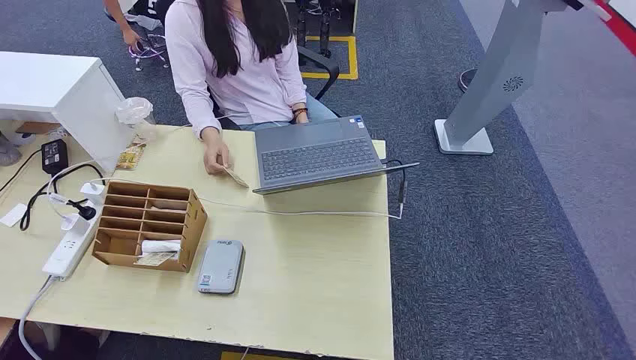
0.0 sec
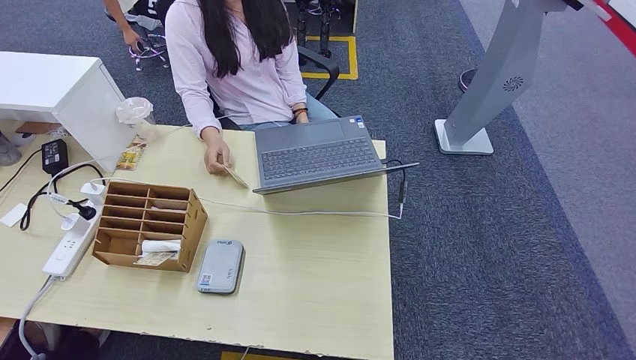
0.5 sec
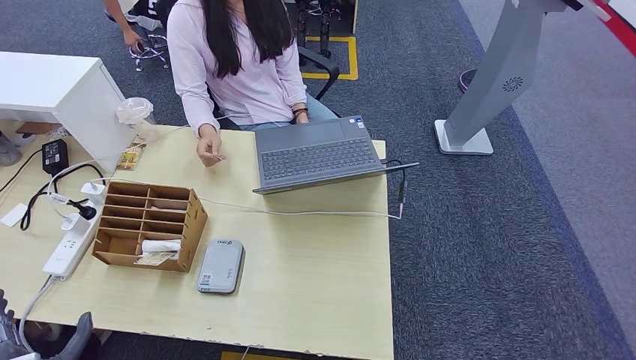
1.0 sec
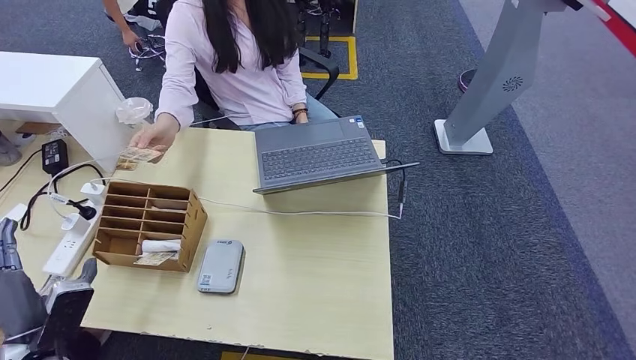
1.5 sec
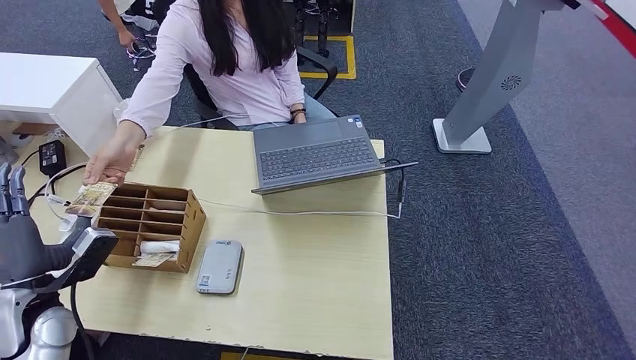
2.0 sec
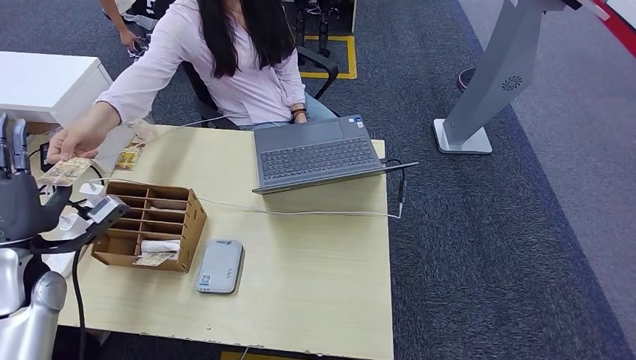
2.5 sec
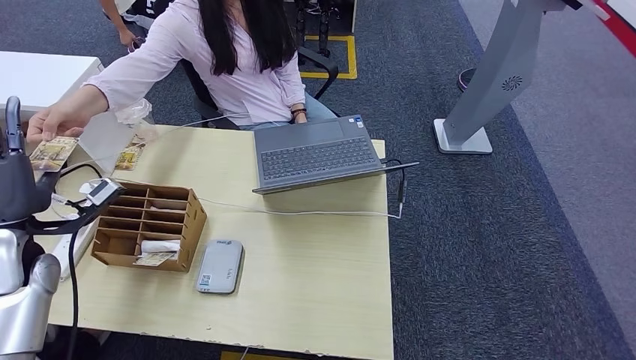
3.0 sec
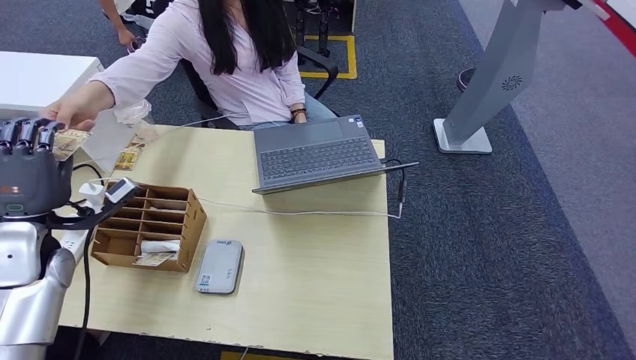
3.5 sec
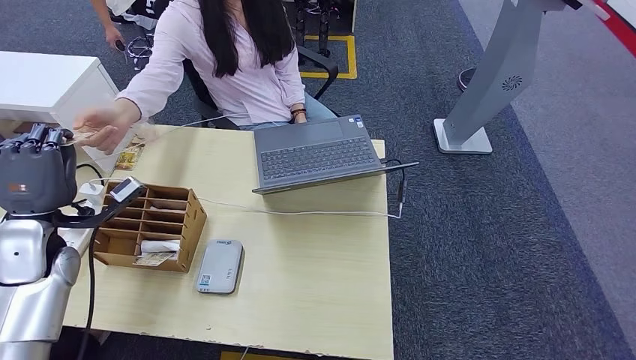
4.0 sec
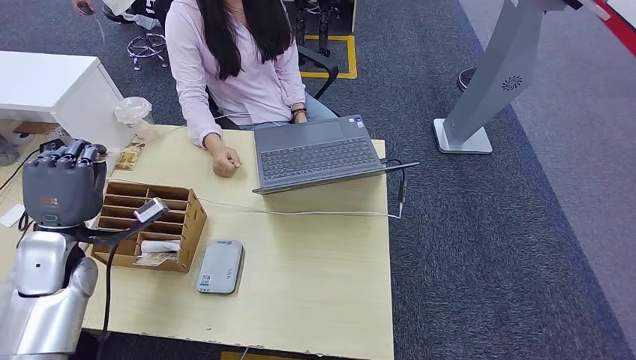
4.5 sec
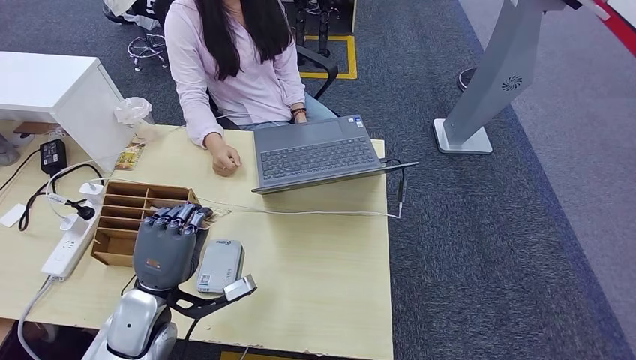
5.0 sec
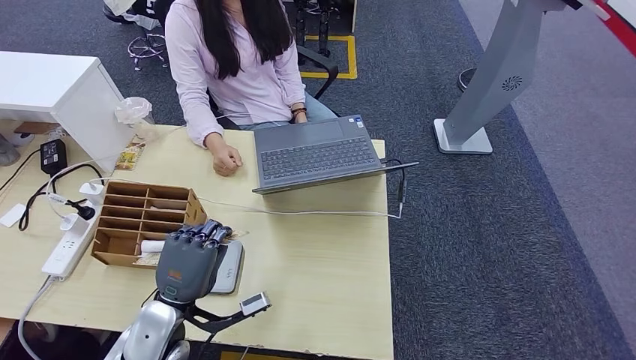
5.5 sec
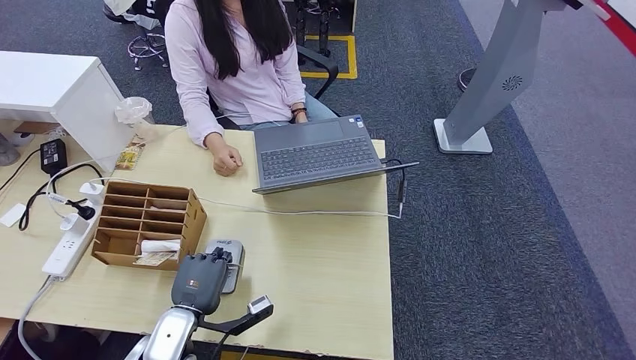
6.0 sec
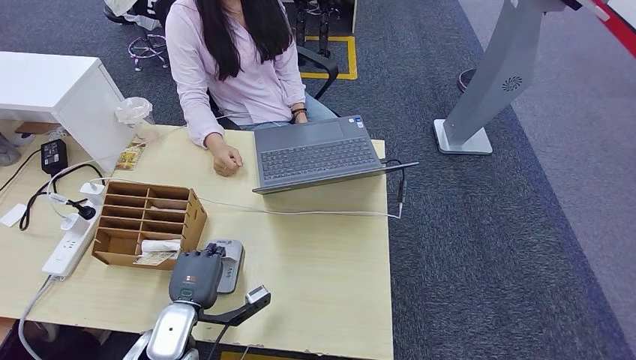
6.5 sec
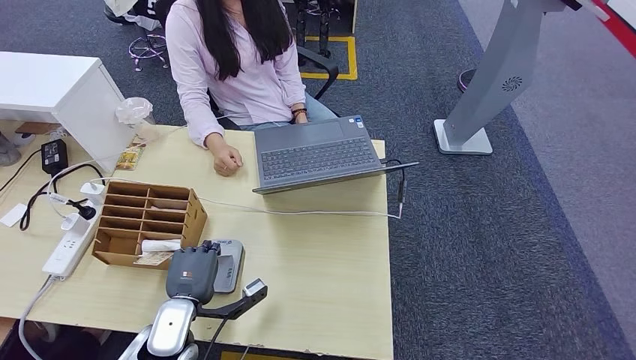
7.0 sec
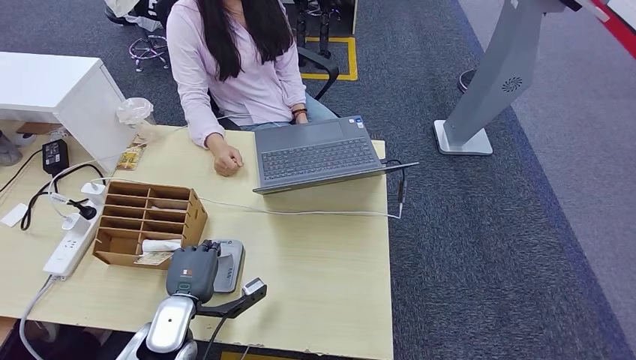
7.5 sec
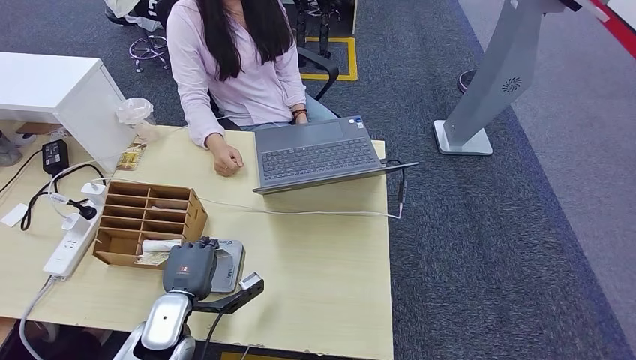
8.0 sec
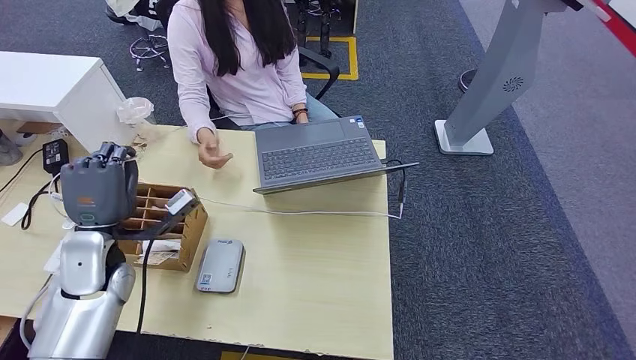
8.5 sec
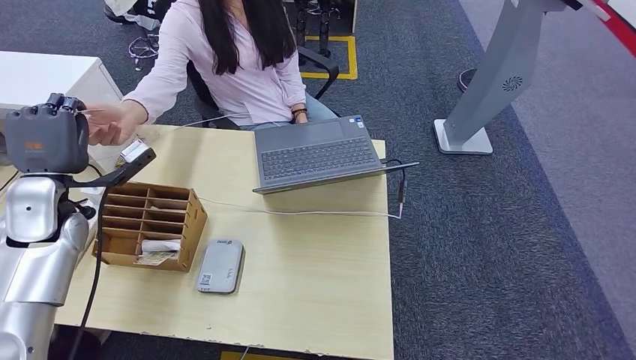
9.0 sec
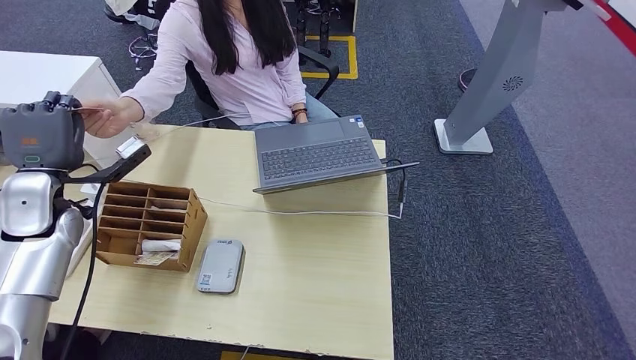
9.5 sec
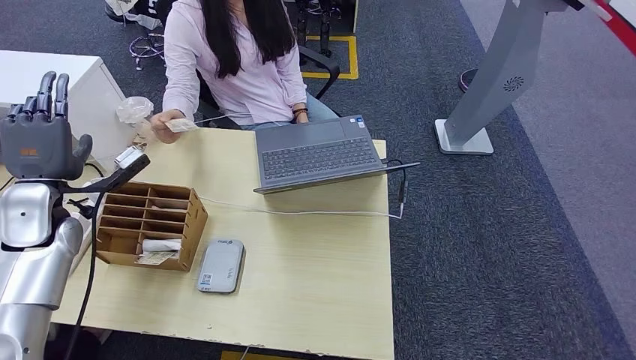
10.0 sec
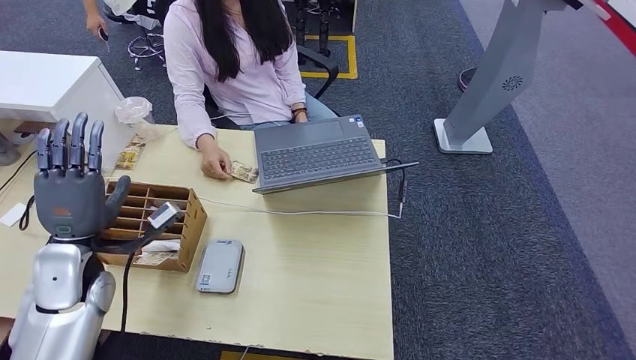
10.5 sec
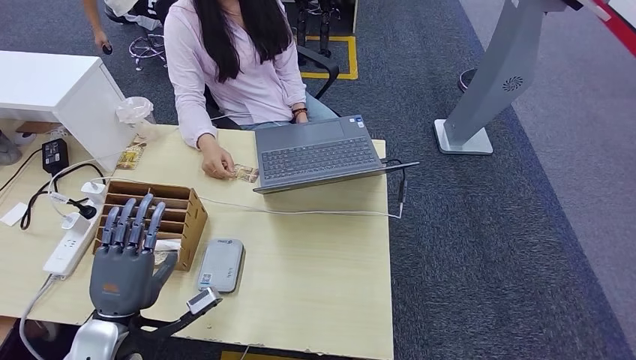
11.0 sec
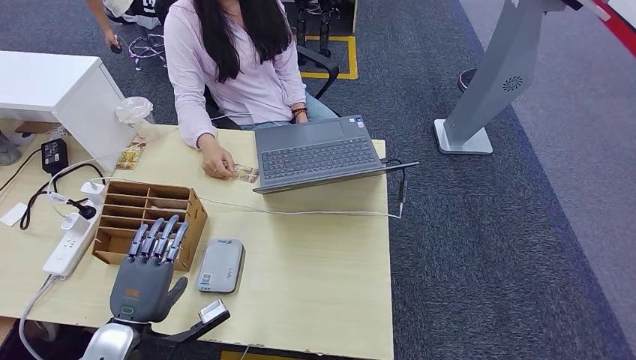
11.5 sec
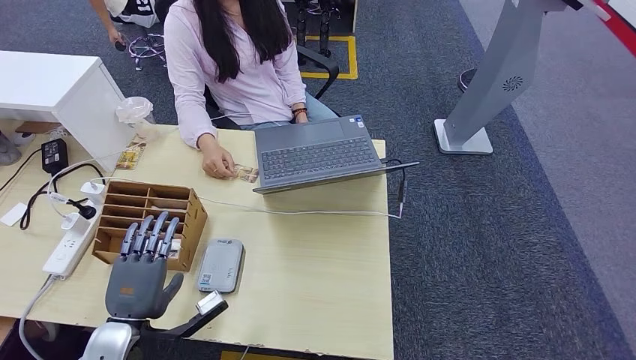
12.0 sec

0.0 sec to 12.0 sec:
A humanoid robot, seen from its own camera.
Step, 0.0 sec to 4.0 sec: Take the ID card from the person's hand.
Step, 4.5 sec to 8.0 sec: Place the ID card on the card reader.
Step, 8.5 sec to 9.5 sec: Hand the ID card to the person.
2.0 sec to 4.0 sec: The left hand moves forward and upward, some 10 cm.
4.0 sec to 6.0 sec: The left hand heads to the right, downward and backward, covering some 25 cm.
6.0 sec to 8.0 sec: The hands make only small movements.
8.0 sec to 10.0 sec: The left hand travels upward, to the left and forward by some 30 cm.
10.0 sec to 12.0 sec: The left hand heads backward, downward and to the right, covering approximately 25 cm.

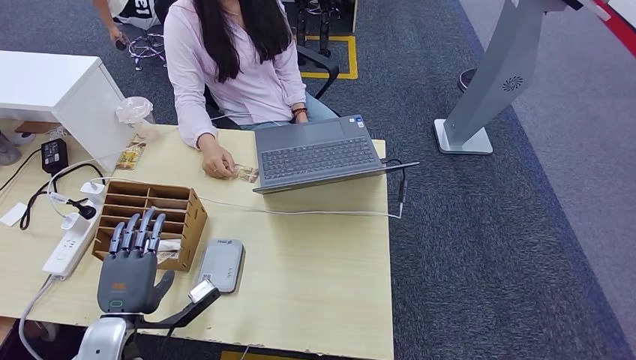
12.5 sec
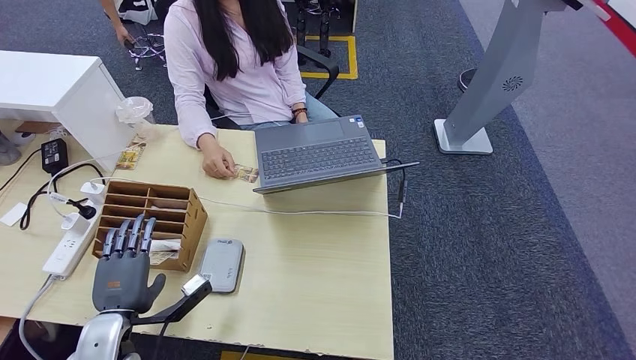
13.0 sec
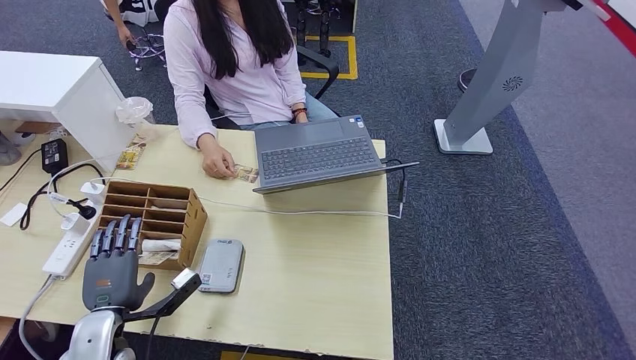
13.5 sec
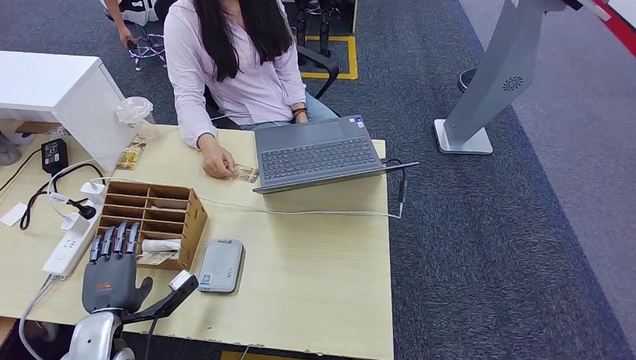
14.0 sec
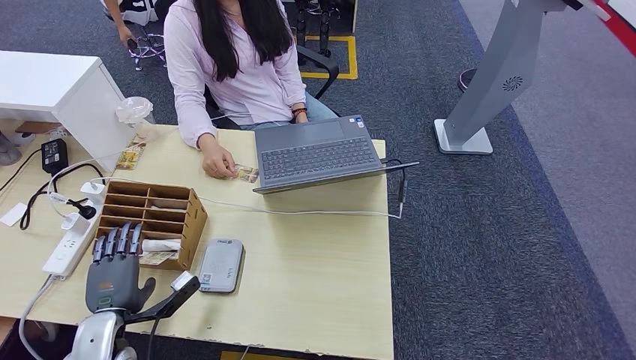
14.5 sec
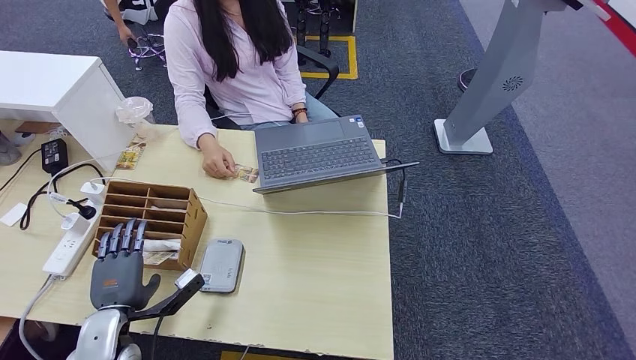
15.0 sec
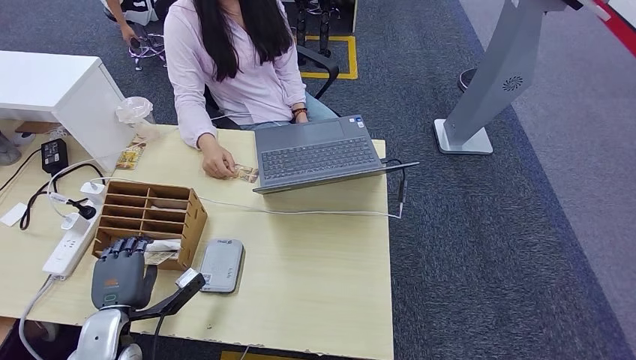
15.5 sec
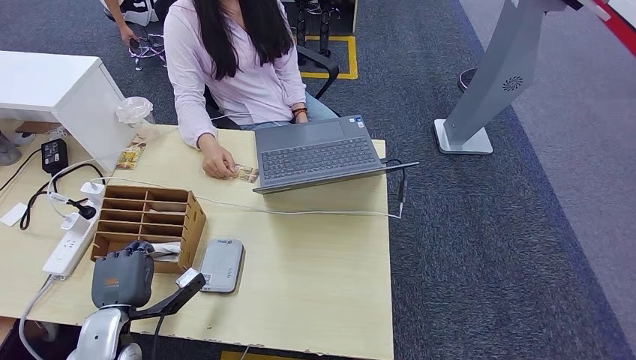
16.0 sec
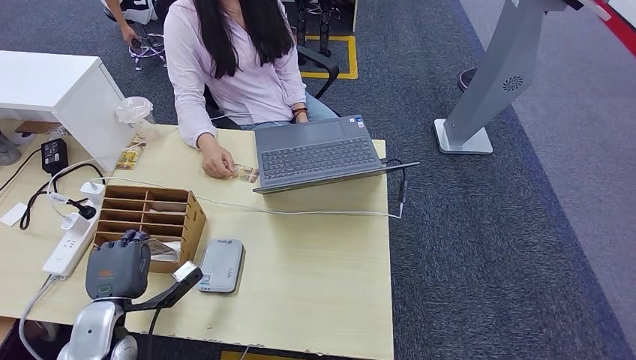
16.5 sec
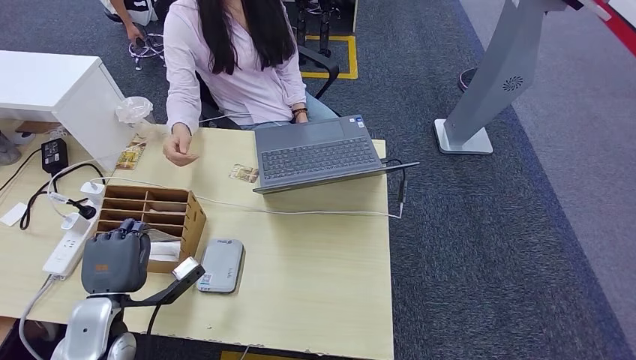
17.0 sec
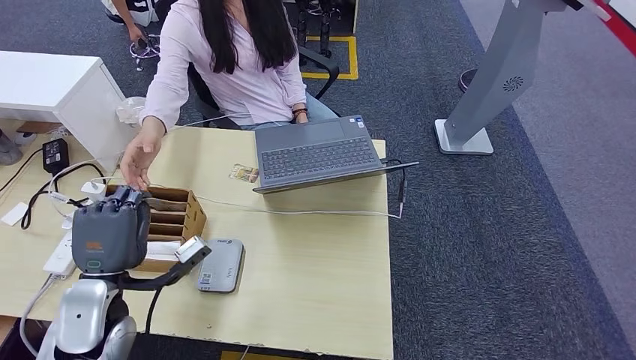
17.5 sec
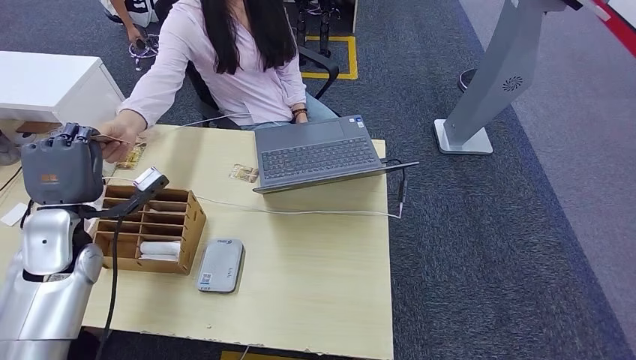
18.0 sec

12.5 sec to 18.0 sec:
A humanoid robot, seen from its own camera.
Step, 12.5 sec to 17.0 sec: Pick up the room key from the key card box.
Step, 17.5 sec to 18.0 sec: Hand the room key to the person.
12.5 sec to 14.5 sec: The left hand ends up roughly 5 cm from where it was.
14.5 sec to 16.0 sec: The two hands keep their place.
16.0 sec to 18.0 sec: The left hand shifts approximately 20 cm upward and forward.
